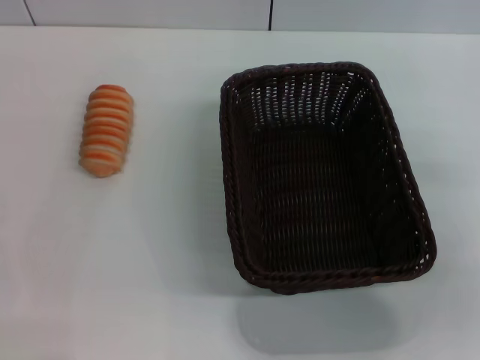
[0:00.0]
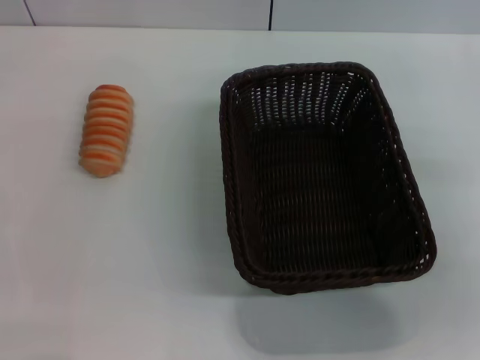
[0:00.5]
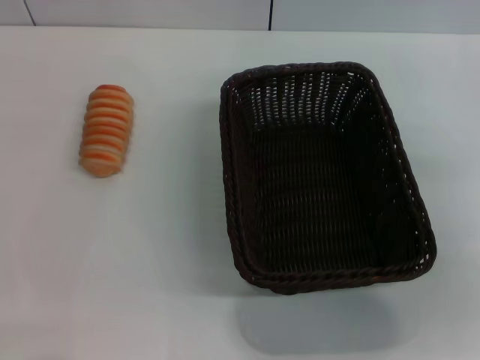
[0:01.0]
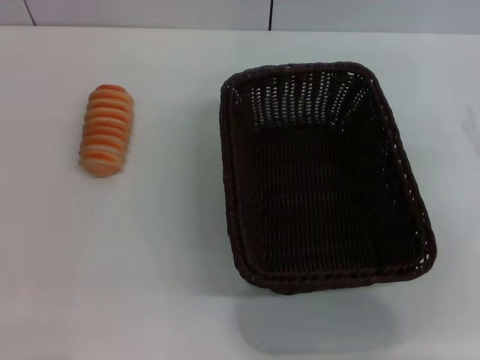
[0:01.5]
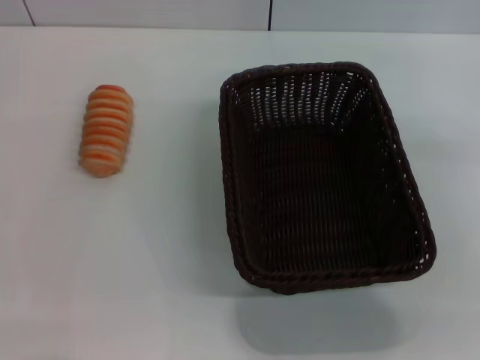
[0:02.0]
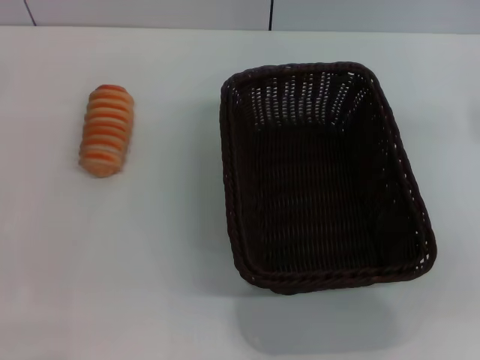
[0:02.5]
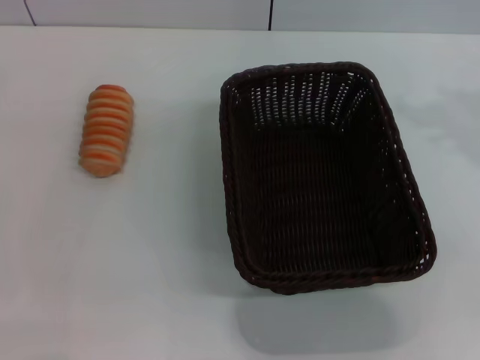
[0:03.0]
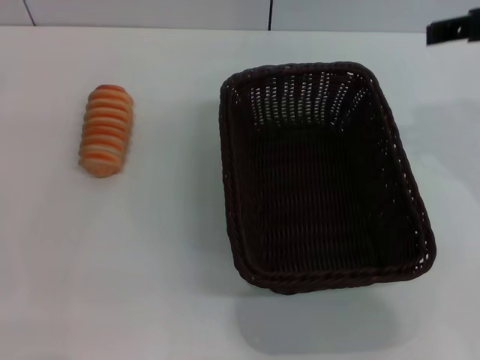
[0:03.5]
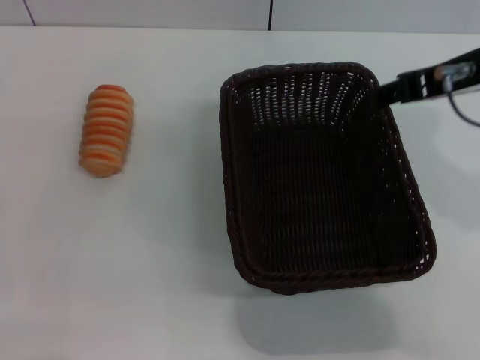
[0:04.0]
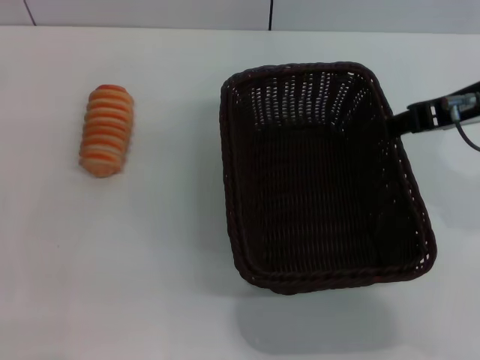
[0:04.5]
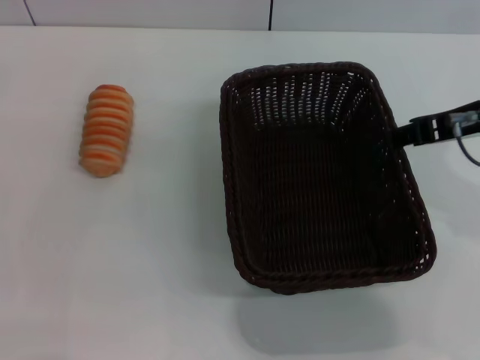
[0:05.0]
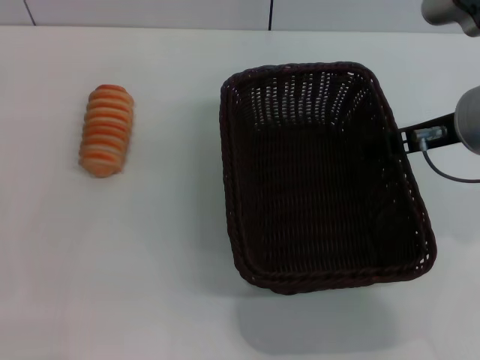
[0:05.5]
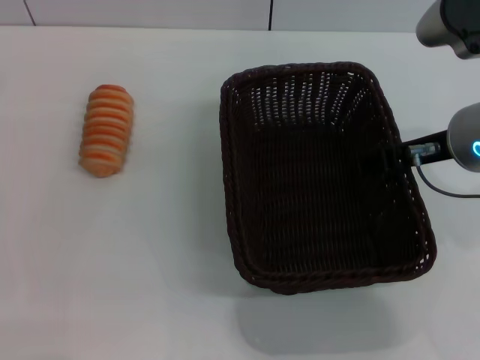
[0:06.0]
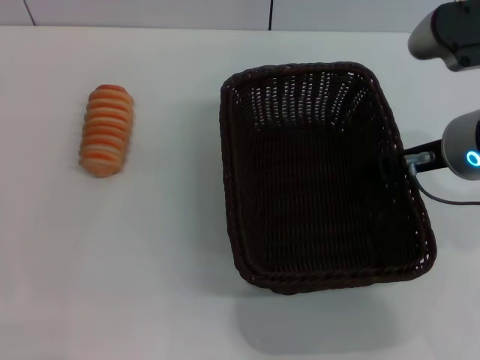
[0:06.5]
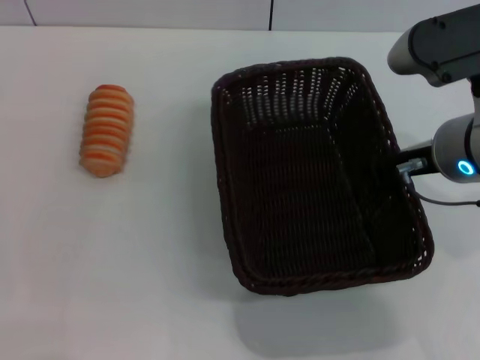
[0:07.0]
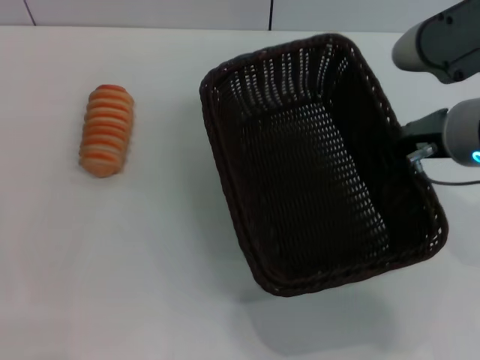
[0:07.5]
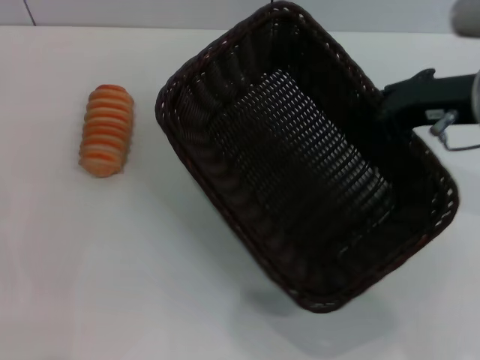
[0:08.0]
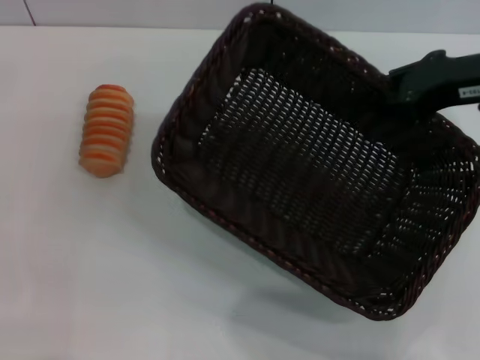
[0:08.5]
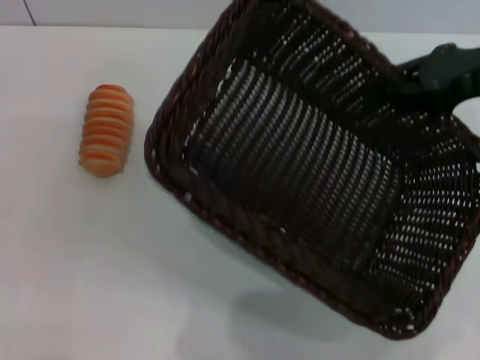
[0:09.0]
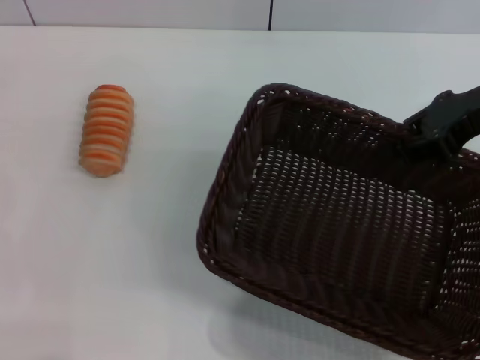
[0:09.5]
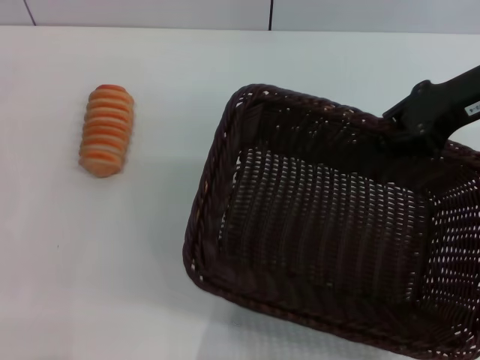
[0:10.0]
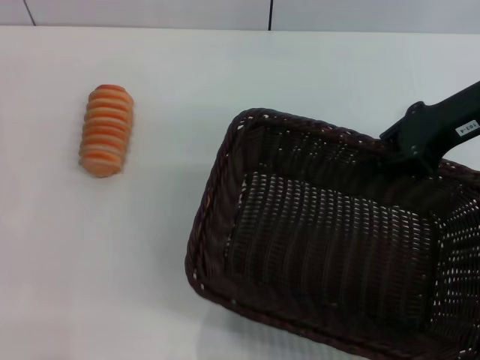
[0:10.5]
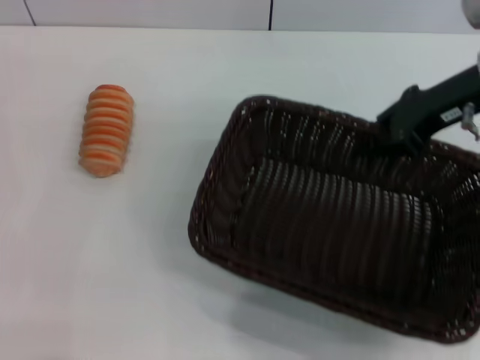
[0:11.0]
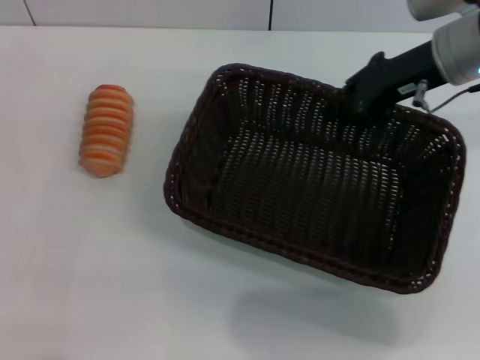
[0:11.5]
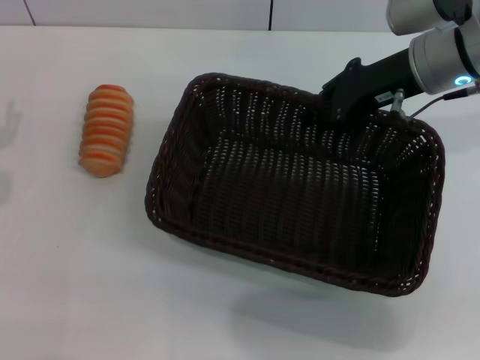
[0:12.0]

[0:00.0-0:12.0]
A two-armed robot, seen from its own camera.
0:02.0 to 0:04.0: The right gripper heads to the left, covering roughly 15 cm.
0:04.0 to 0:06.0: The right gripper goes some 10 cm downward.
0:06.0 to 0:08.0: The right gripper closes up.
0:08.0 to 0:10.0: The right gripper moves forward, some 5 cm.
0:10.0 to 0:12.0: The right gripper goes about 5 cm to the left. The left gripper moves some 5 cm.

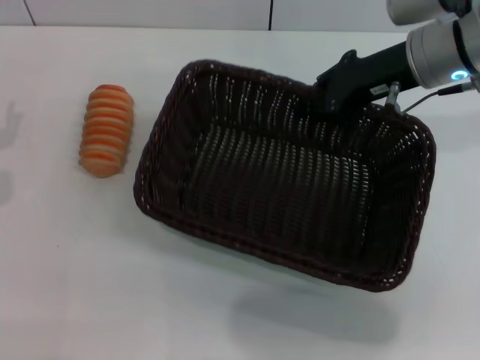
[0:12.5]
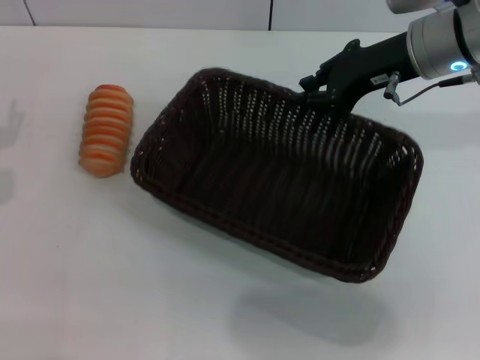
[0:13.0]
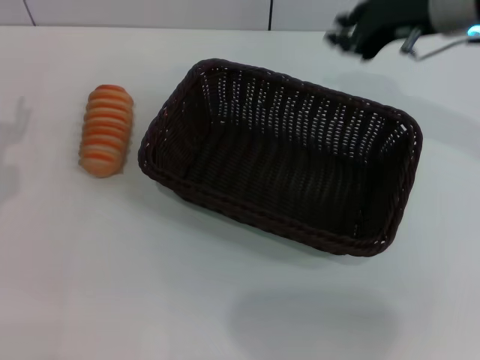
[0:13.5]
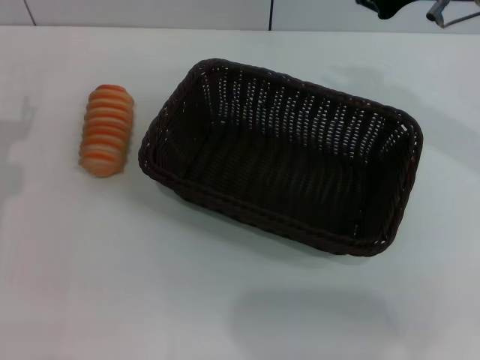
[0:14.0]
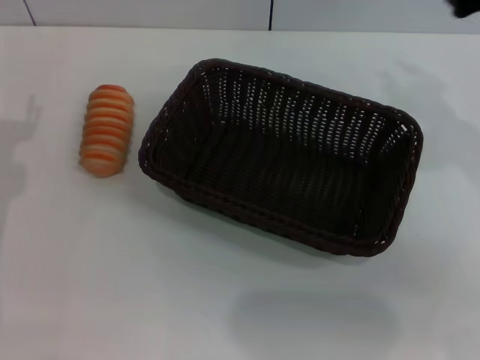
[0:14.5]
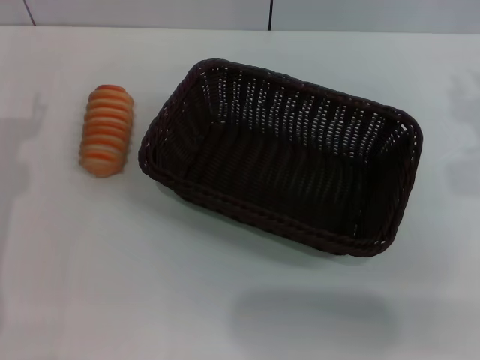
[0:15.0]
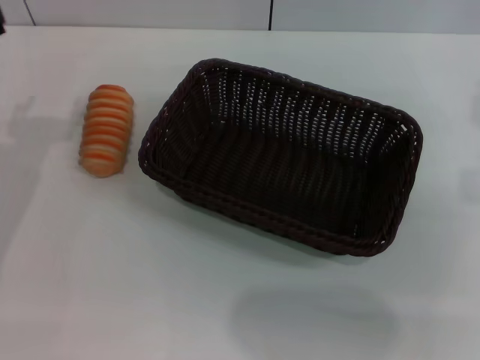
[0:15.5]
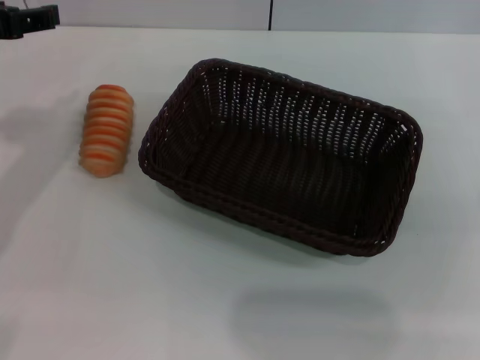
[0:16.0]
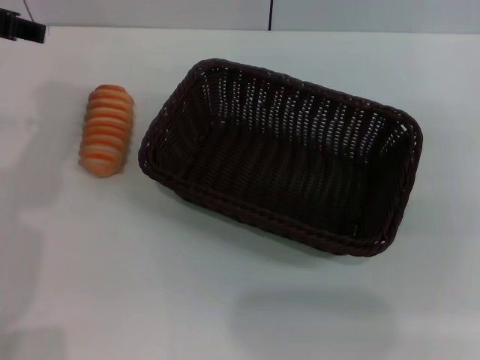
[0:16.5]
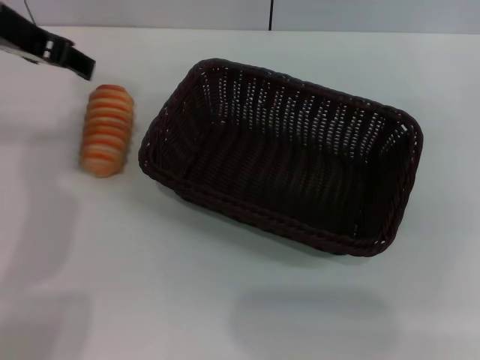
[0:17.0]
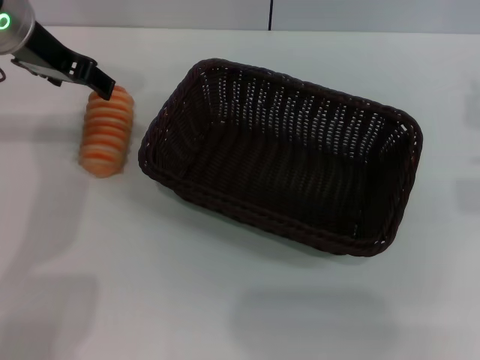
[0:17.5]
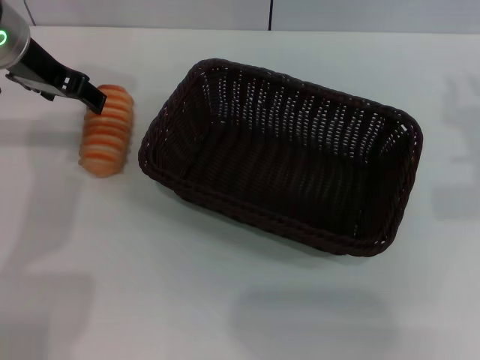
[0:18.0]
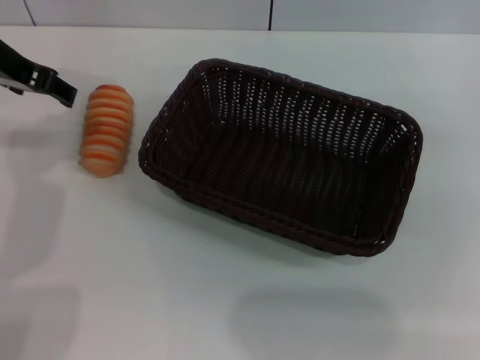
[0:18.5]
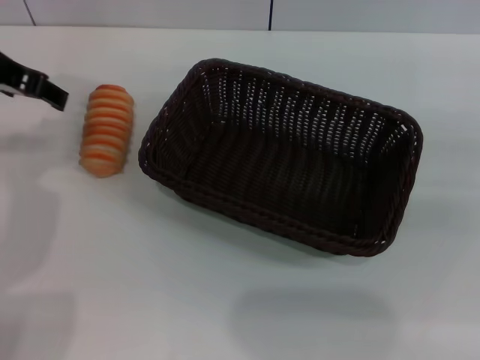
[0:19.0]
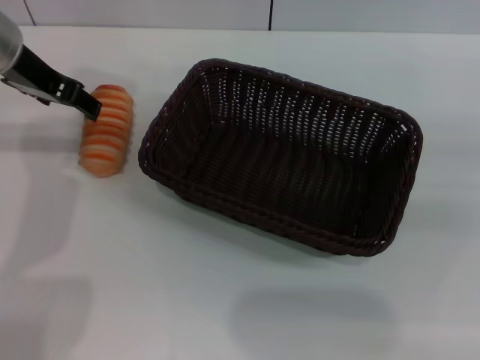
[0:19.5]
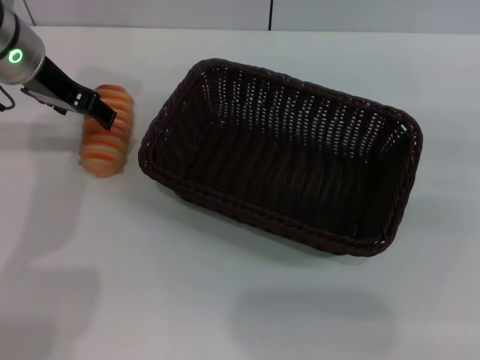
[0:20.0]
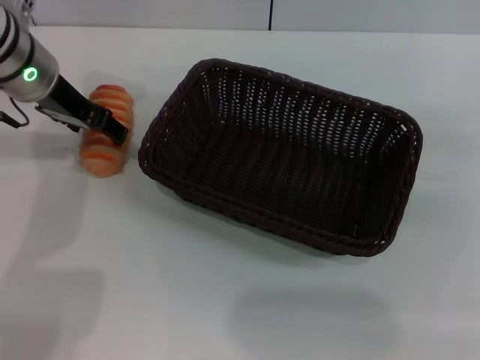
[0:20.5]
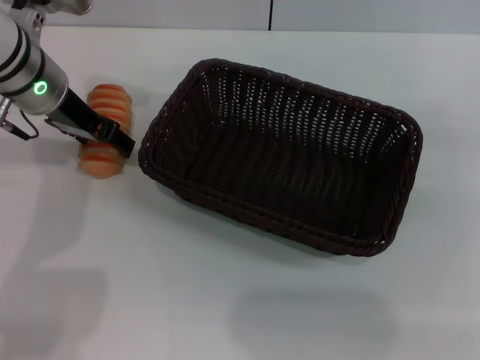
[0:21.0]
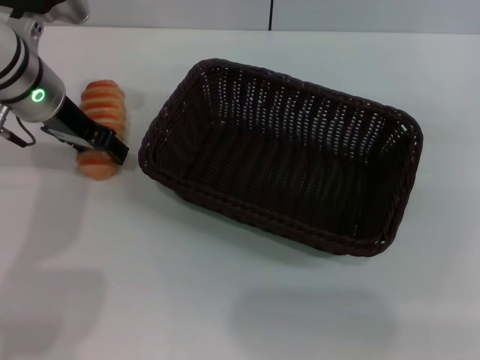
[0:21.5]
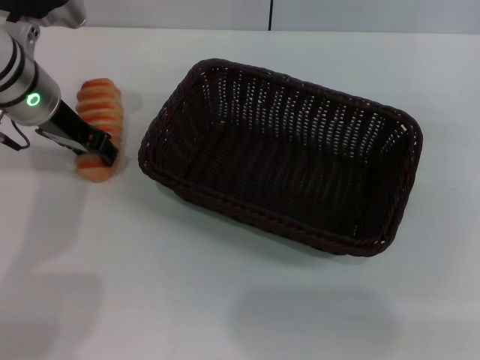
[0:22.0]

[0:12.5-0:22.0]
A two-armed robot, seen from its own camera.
0:12.5 to 0:14.5: The right gripper shifts roughly 10 cm backward and to the right.
0:14.5 to 0:16.5: The right gripper heads backward and to the right, covering roughly 10 cm; the left gripper travels upward, forward and to the right by about 15 cm.
0:16.5 to 0:18.0: The left gripper moves forward and downward, approximately 10 cm.
0:20.0 to 0:22.0: The left gripper closes up.

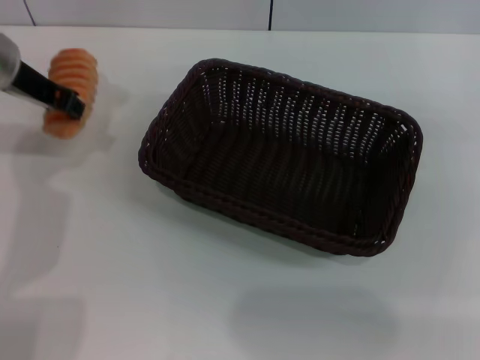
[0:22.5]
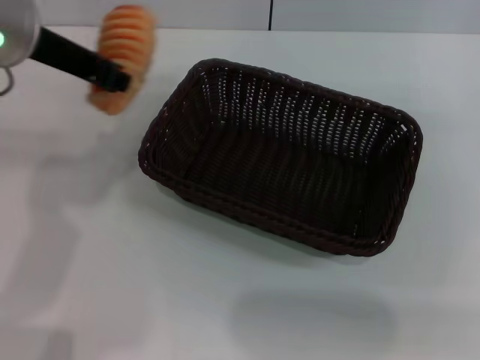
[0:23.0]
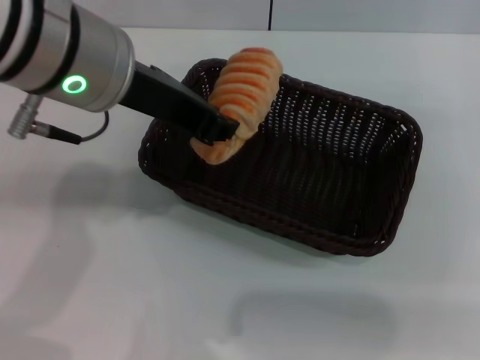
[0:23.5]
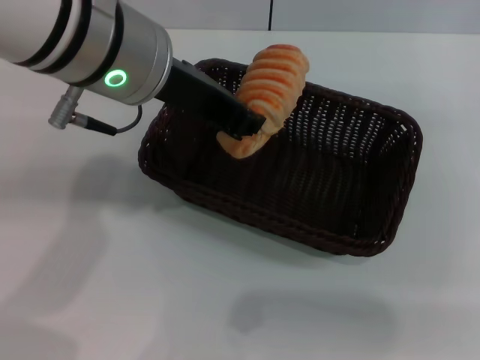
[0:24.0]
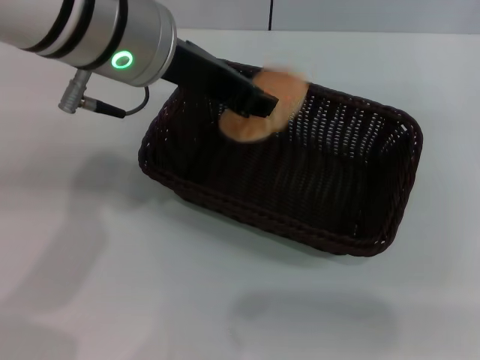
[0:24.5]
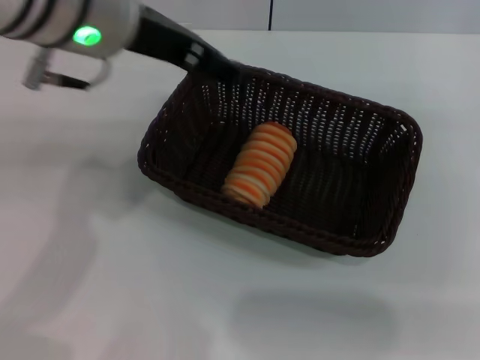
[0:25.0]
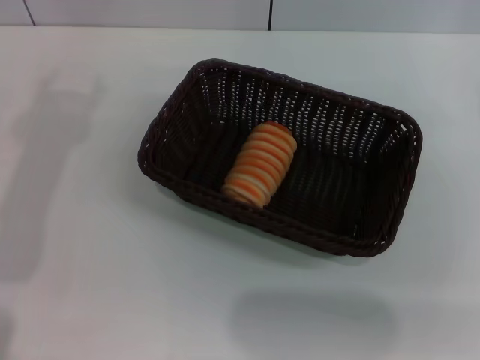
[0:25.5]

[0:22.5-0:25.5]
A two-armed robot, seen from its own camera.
0:22.5 to 0:24.0: The left gripper shifts approximately 15 cm to the right, backward and upward, and closes up.
0:24.0 to 0:25.5: The left gripper heads to the left, covering approximately 15 cm, and opens its fingers.

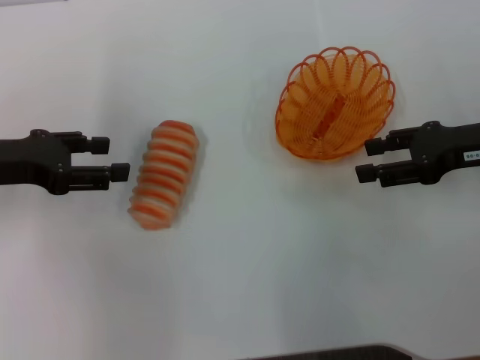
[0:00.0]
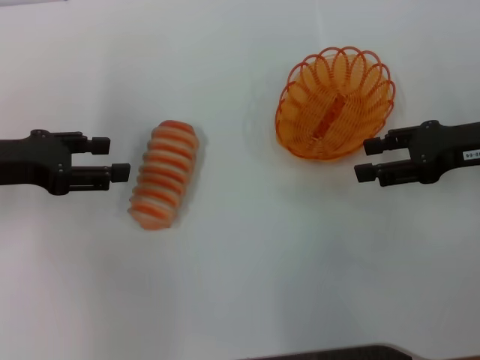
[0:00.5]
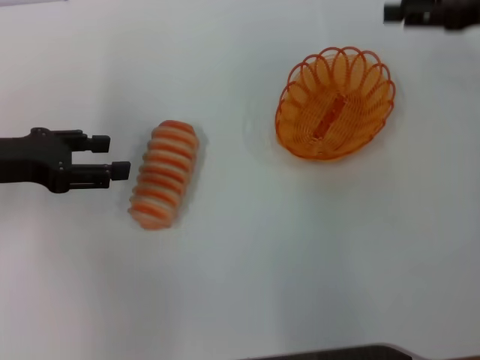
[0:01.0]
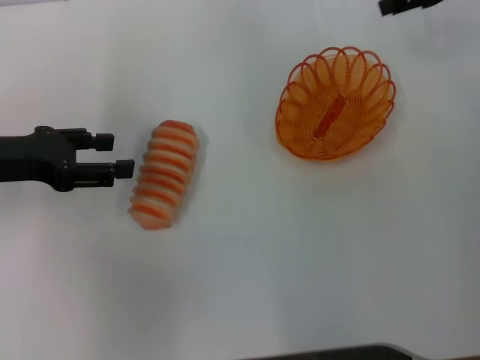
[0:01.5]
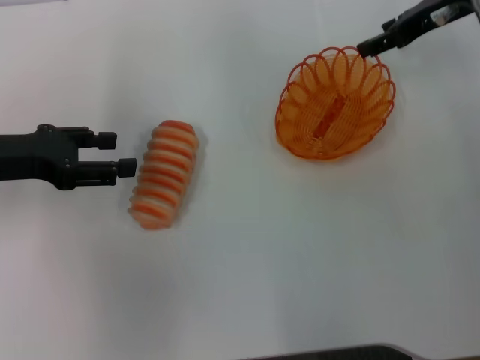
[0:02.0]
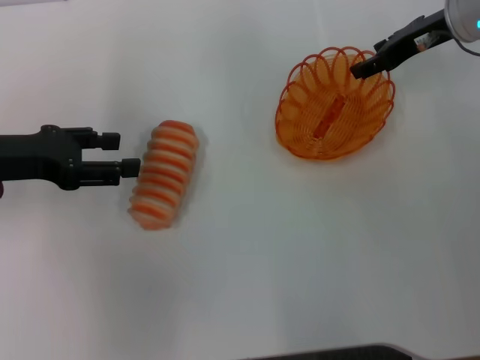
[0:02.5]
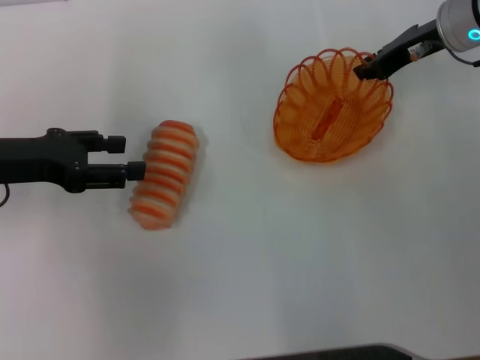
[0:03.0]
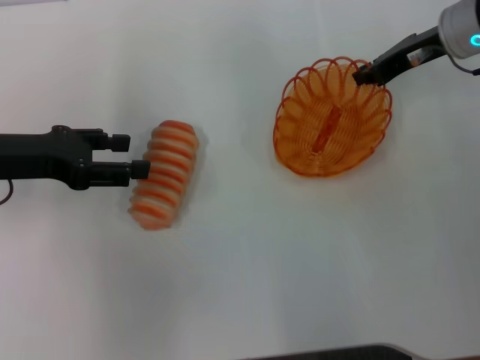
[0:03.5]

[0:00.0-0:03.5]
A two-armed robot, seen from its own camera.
0:00.0 to 0:02.0: The right gripper moves forward and upward, some 15 cm.
0:02.0 to 0:03.5: The right gripper closes.
